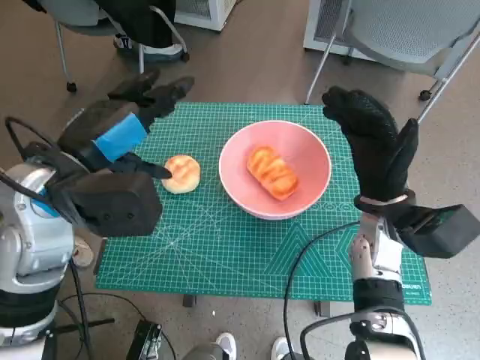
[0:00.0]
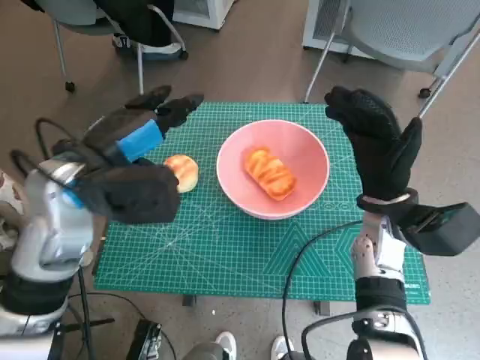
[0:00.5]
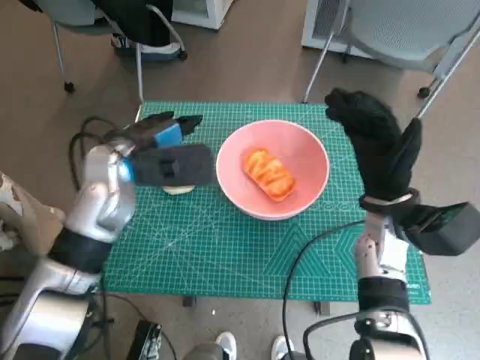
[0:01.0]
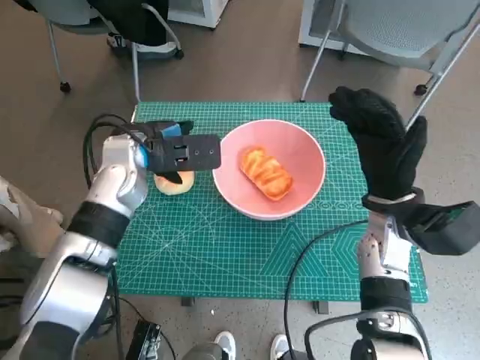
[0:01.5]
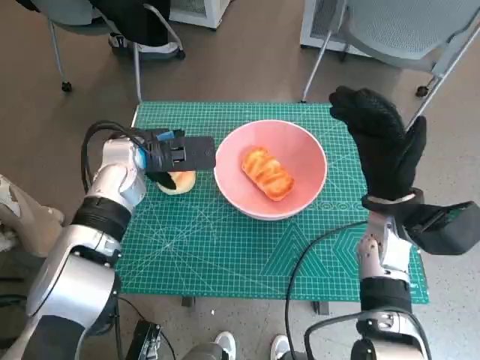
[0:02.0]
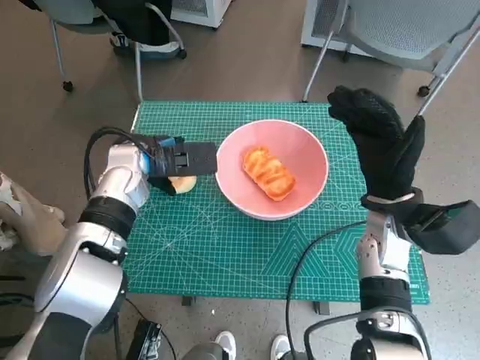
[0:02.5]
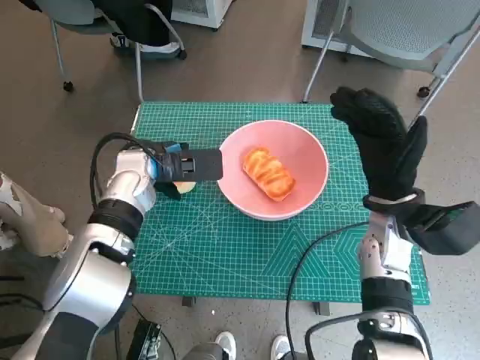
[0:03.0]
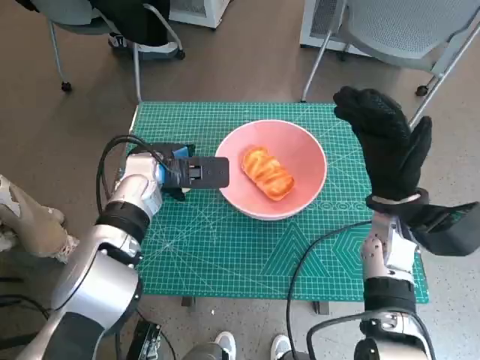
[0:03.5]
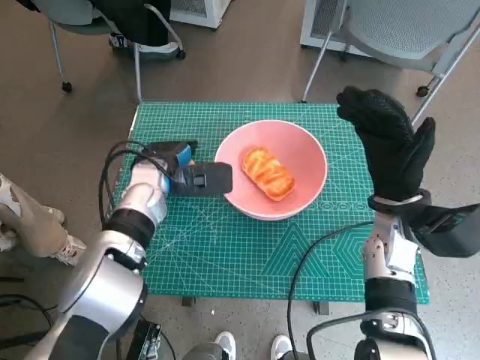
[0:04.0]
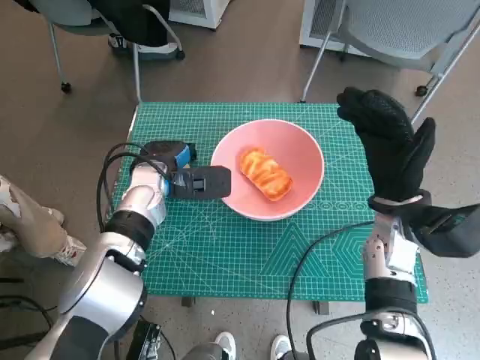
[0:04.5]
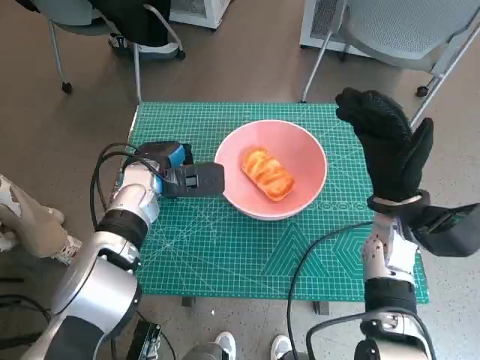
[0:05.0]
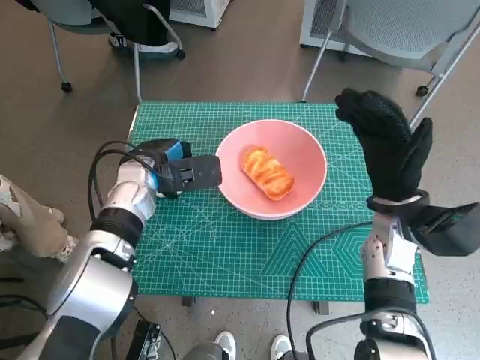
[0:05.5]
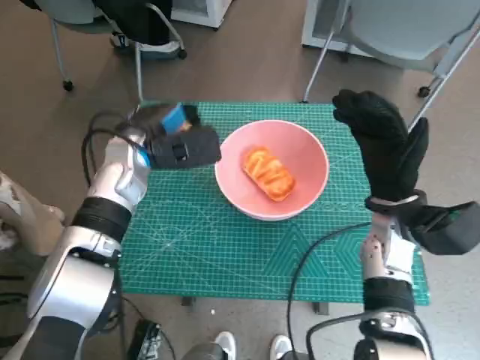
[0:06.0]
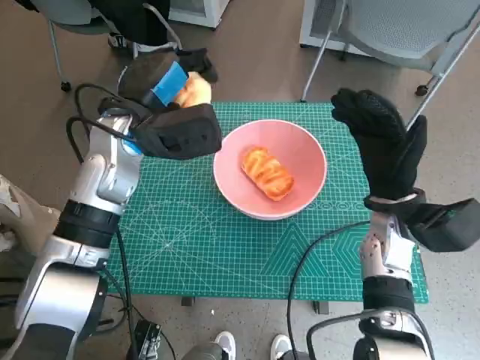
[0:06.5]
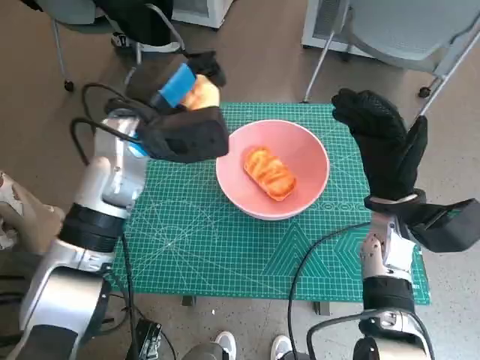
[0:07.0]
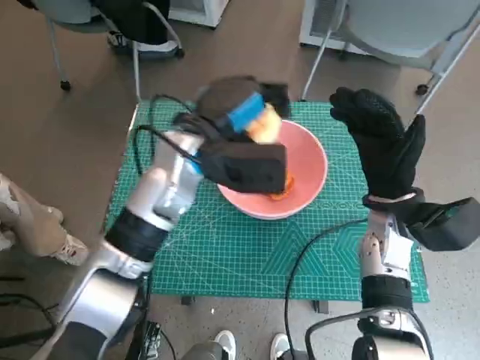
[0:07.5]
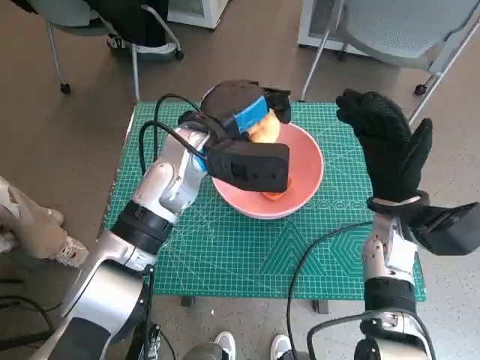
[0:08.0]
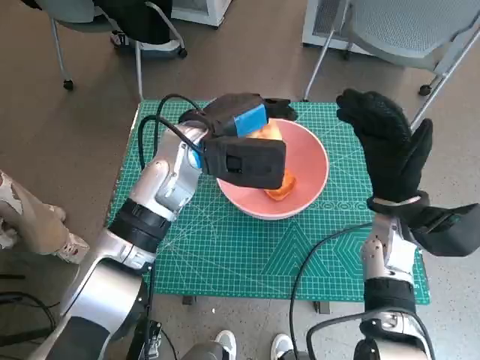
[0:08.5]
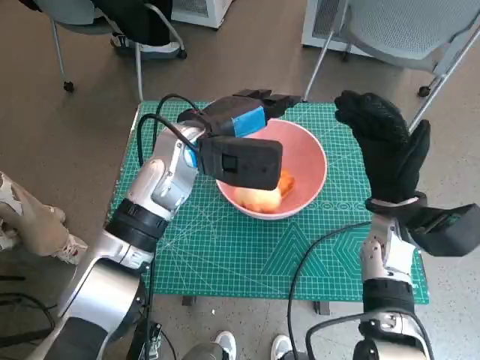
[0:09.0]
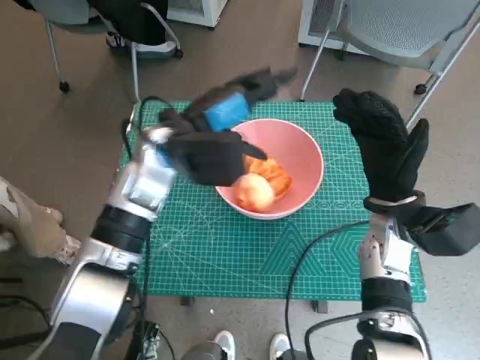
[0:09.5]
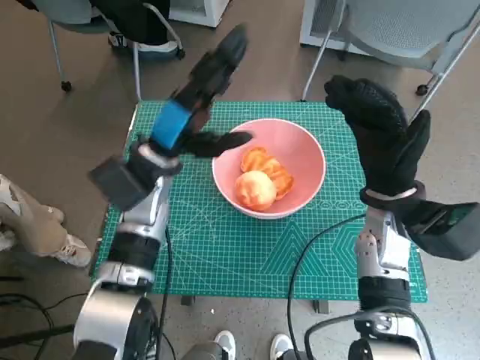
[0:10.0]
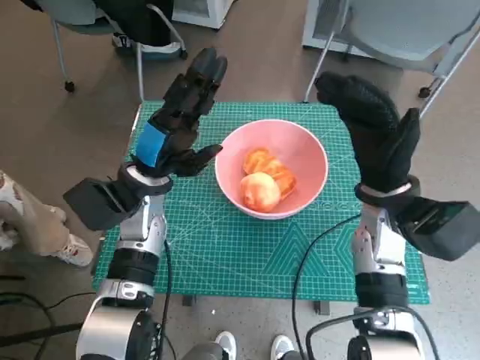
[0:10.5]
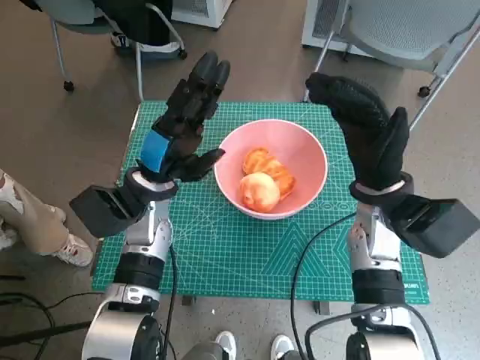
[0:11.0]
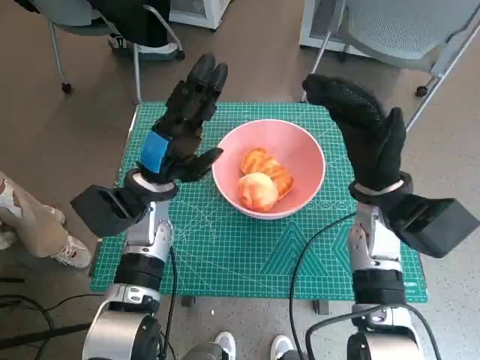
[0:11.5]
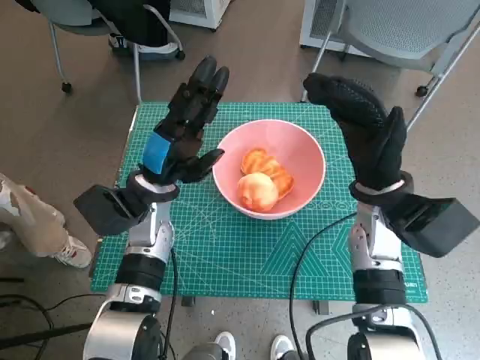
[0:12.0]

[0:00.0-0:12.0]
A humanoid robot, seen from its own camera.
Step, 0:00.0 to 0:04.0: Grasp the round bread with left hand.
Step, 0:04.5 to 0:09.0: Place the round bread in pink bowl with left hand.
0:00.0 to 0:02.0: The left hand heads forward and downward, covering approximately 15 cm.
0:02.0 to 0:04.0: The left hand ends up about 5 cm from where it was.
0:04.0 to 0:06.0: The hands move only a little.
0:06.0 to 0:08.0: The left hand goes some 10 cm to the right.
0:08.0 to 0:10.0: The left hand travels to the left by roughly 5 cm.
0:10.0 to 0:12.0: The left hand ends up roughly 5 cm from where it was.
